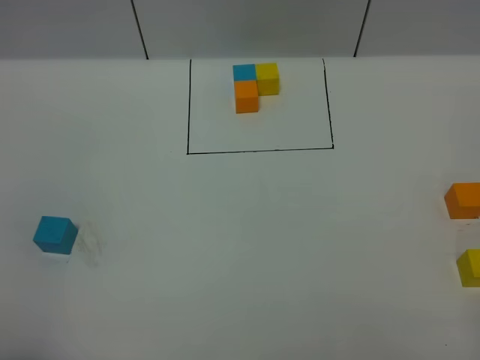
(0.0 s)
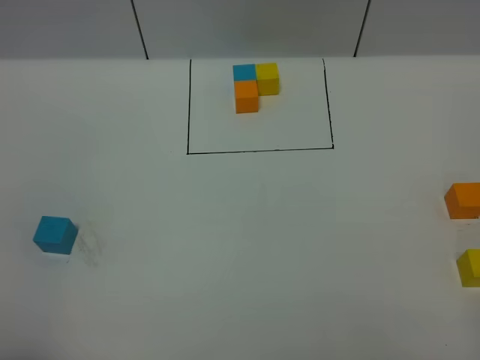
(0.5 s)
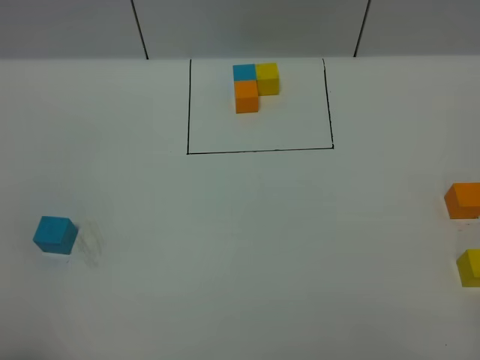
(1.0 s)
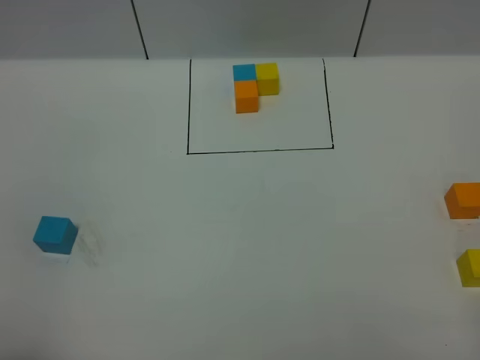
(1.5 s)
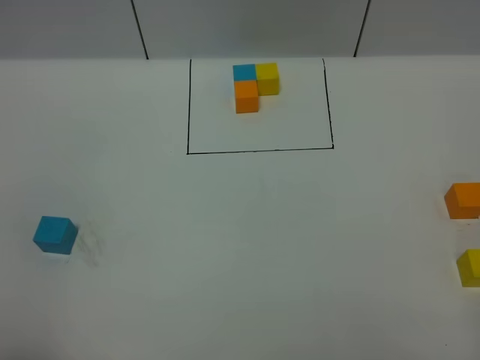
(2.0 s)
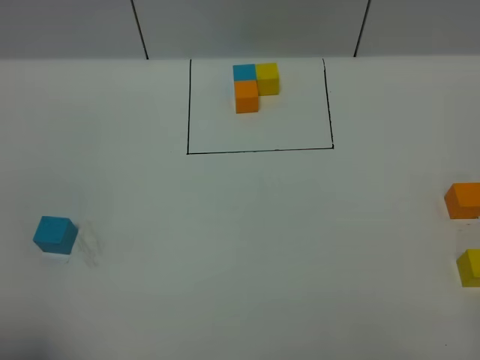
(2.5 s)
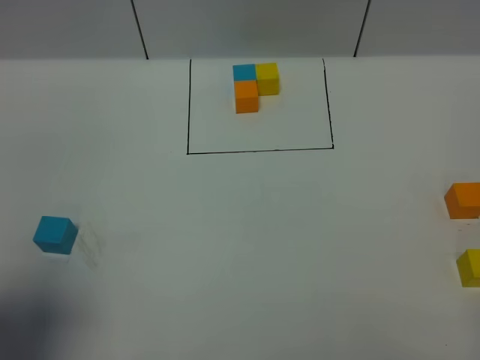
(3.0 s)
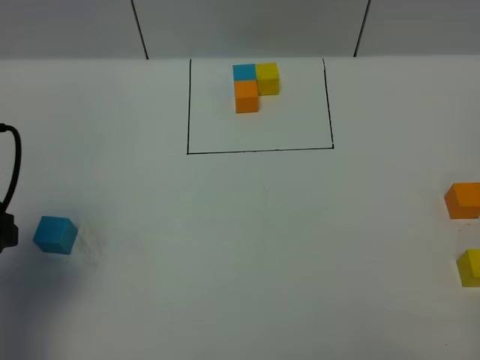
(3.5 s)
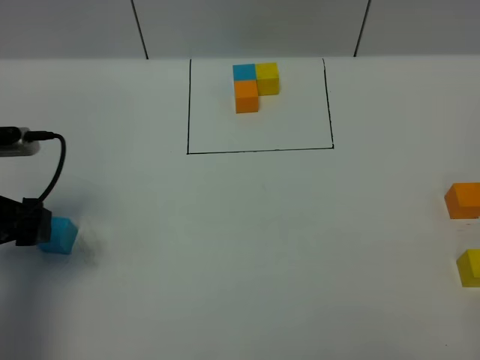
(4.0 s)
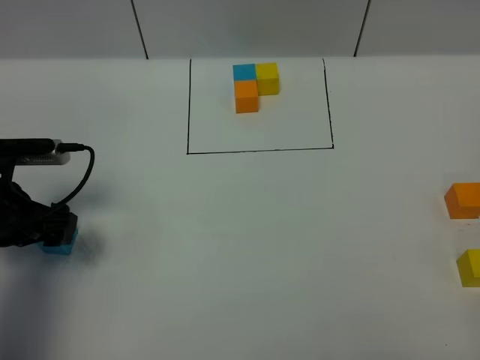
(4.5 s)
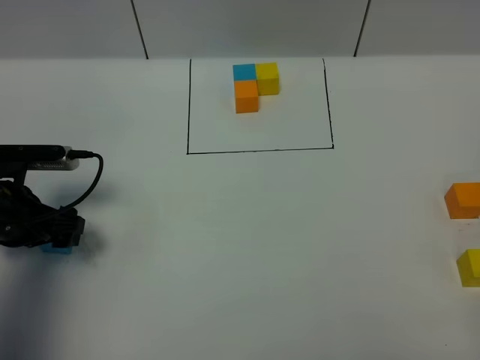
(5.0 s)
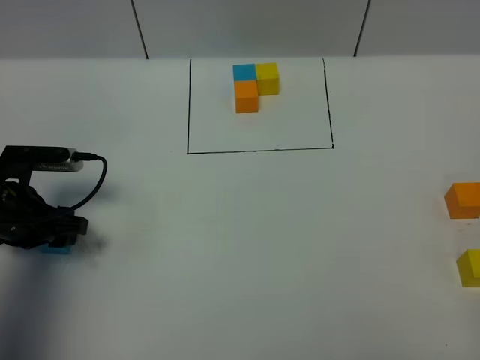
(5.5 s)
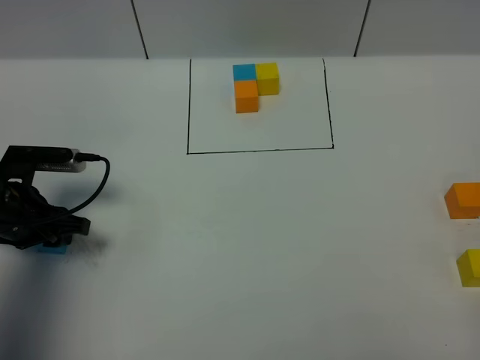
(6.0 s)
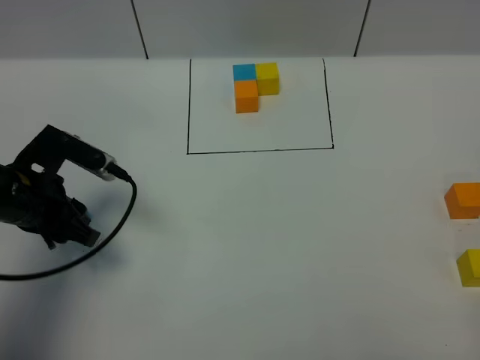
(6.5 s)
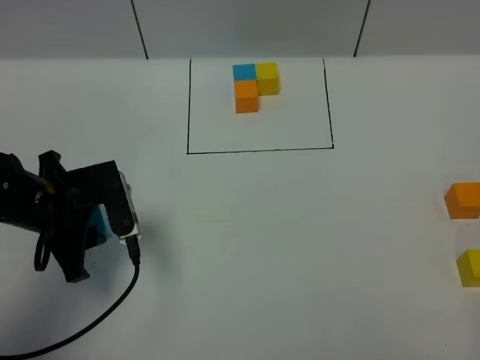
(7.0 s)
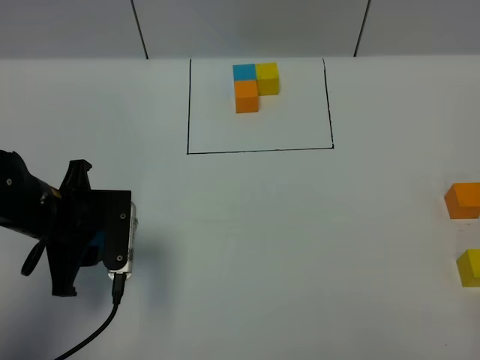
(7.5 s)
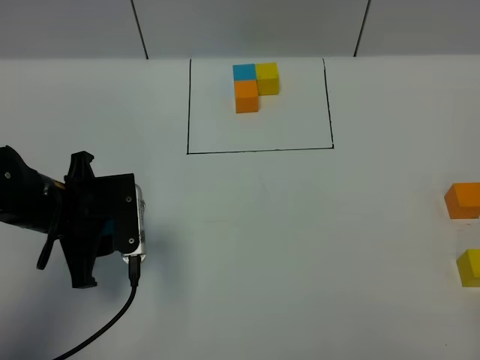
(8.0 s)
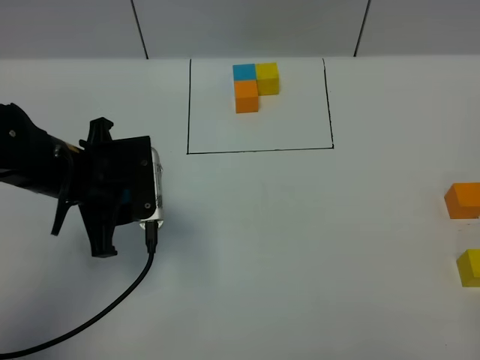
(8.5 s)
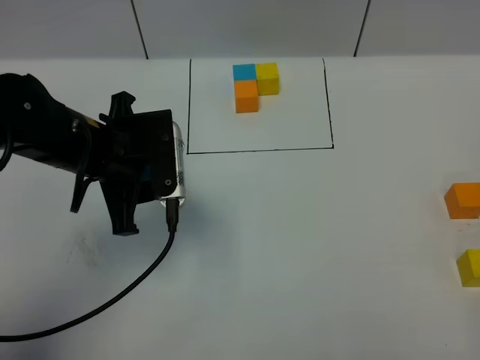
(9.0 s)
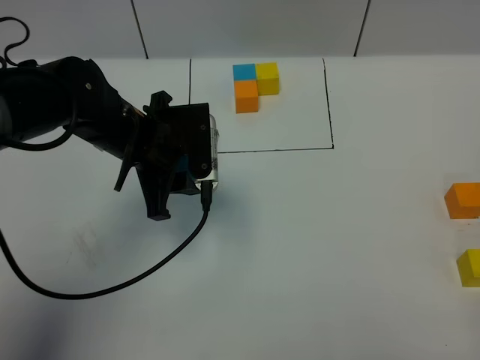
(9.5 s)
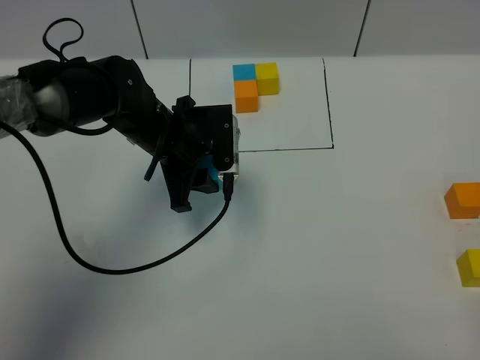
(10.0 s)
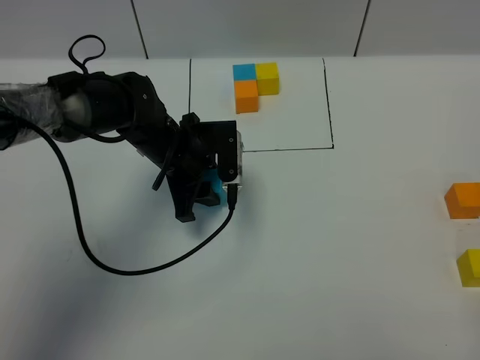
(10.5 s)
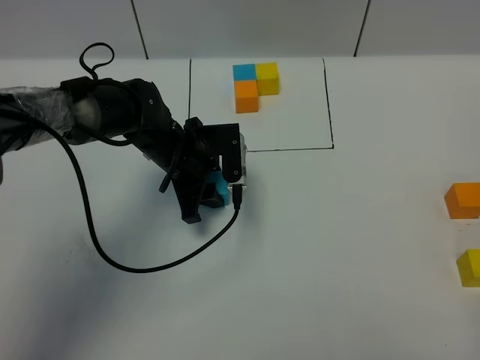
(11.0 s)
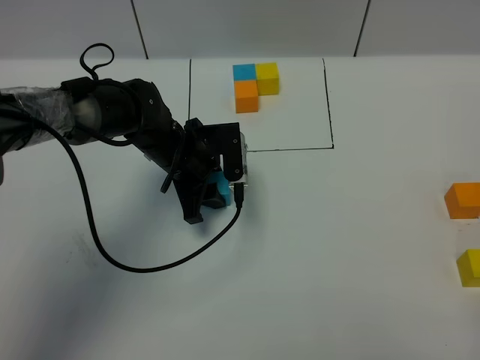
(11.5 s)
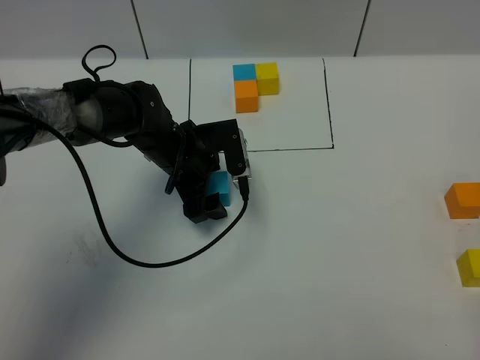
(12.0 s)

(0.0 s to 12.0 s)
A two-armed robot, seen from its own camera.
Task of the whole recording: According to the building block template in front, assemble the scattered blocks together.
2.0 s - 4.0 s: The left gripper shifts some 25 cm forward, and opens its fingers.
4.0 s - 6.0 s: The left gripper heads downward, covering about 10 cm, and closes its fingers.
6.0 s - 8.0 s: The left gripper goes roughly 10 cm to the right.
8.0 s - 10.0 s: The left gripper travels forward and to the right by roughly 15 cm.
10.0 s - 12.0 s: The left gripper goes about 5 cm downward, and opens its fingers.

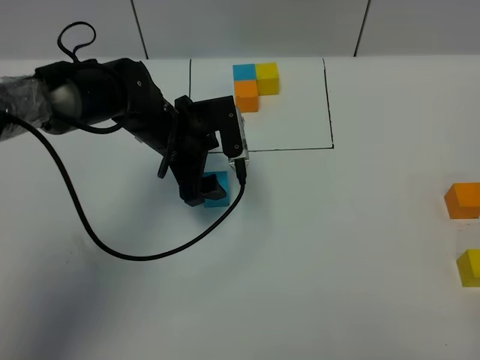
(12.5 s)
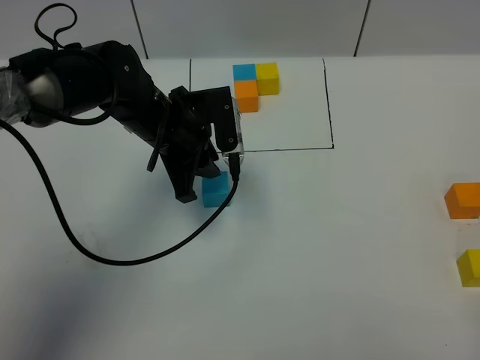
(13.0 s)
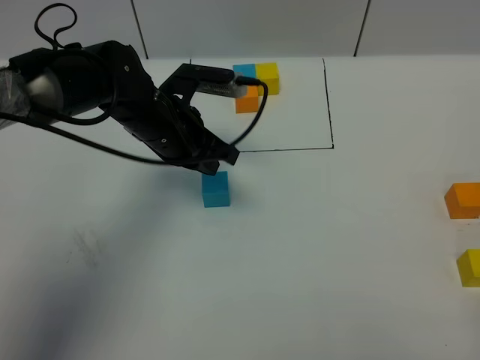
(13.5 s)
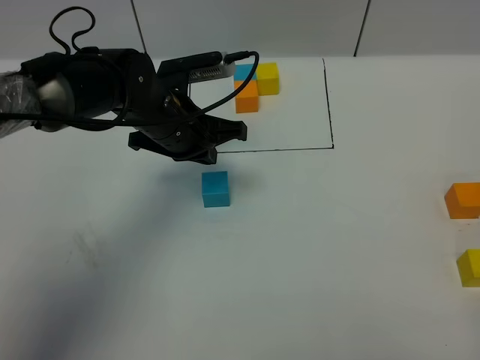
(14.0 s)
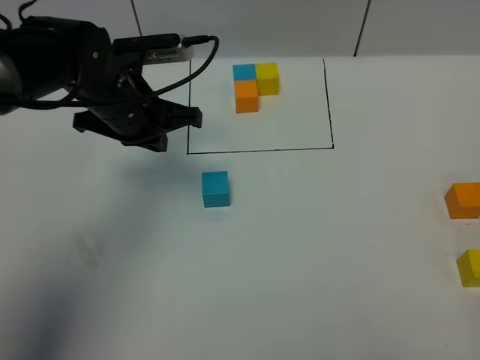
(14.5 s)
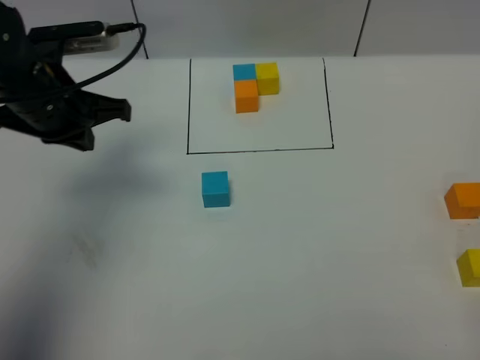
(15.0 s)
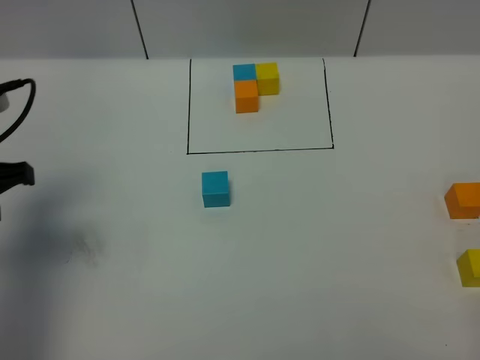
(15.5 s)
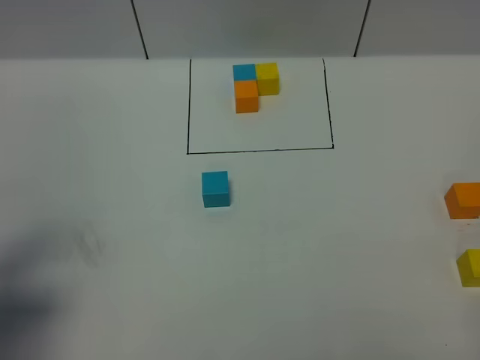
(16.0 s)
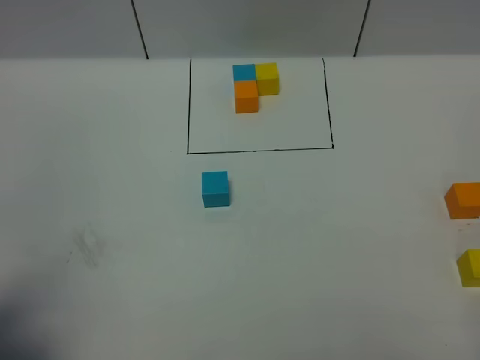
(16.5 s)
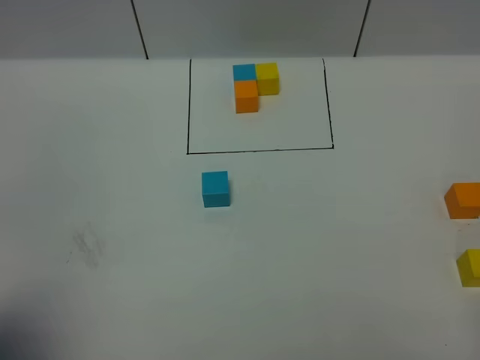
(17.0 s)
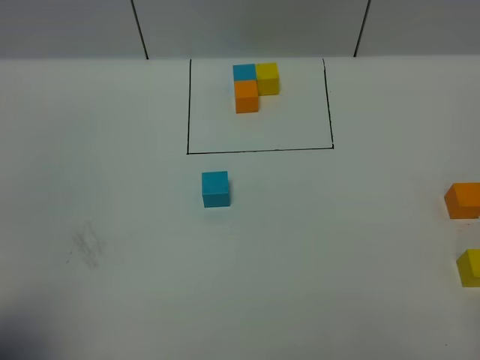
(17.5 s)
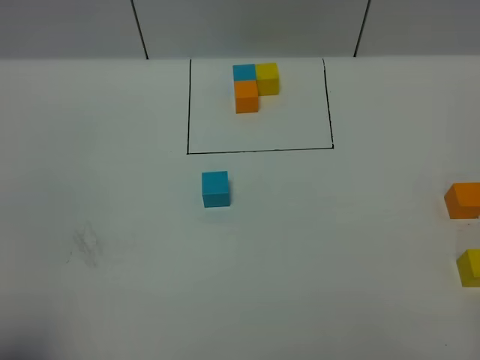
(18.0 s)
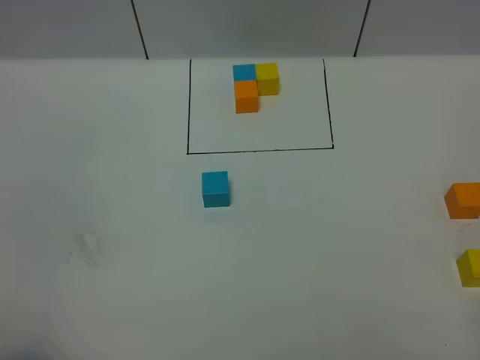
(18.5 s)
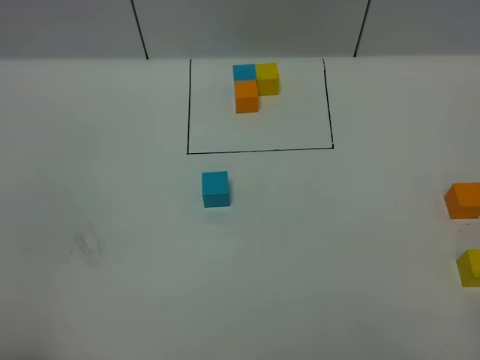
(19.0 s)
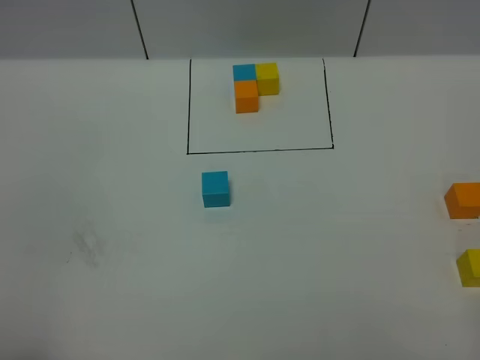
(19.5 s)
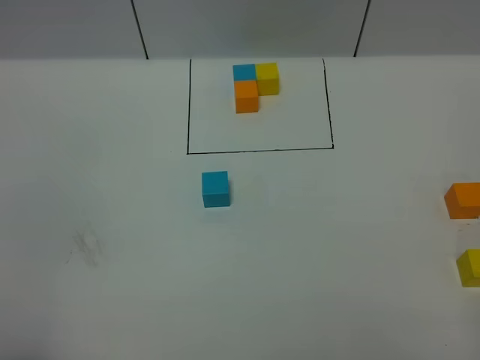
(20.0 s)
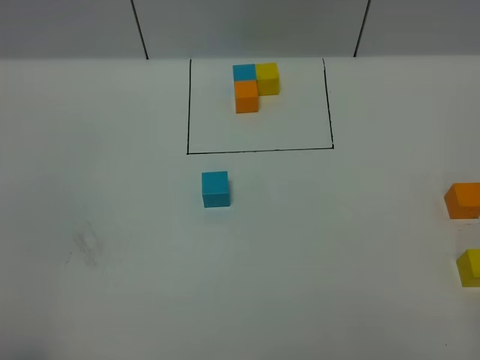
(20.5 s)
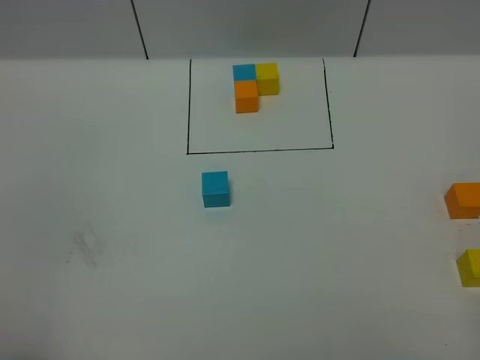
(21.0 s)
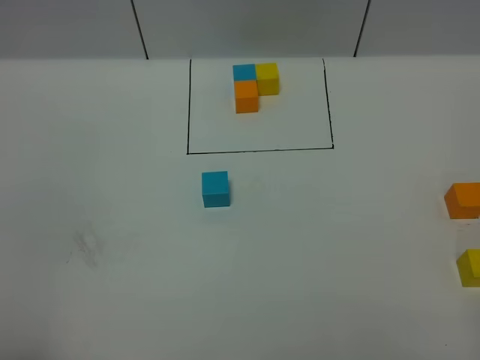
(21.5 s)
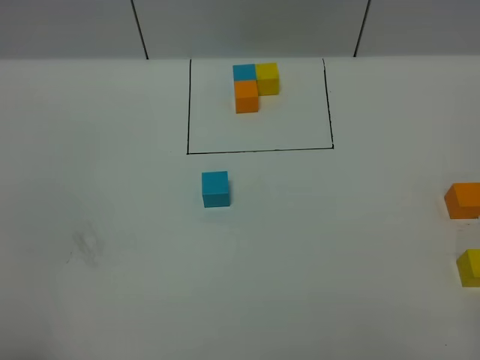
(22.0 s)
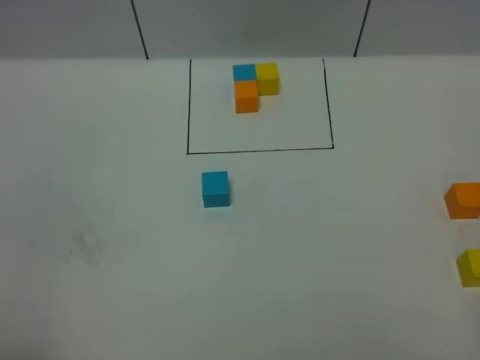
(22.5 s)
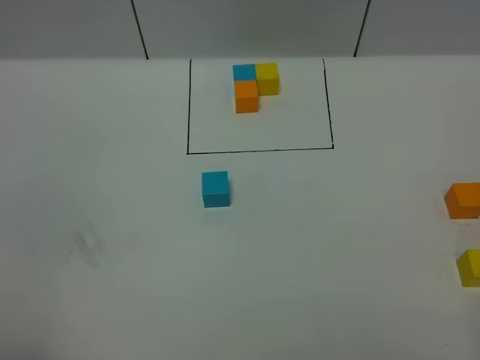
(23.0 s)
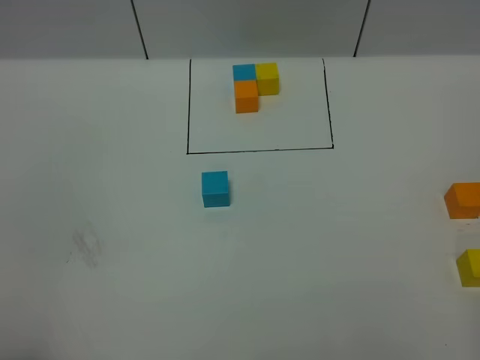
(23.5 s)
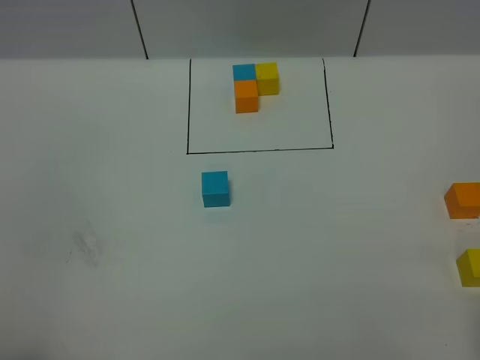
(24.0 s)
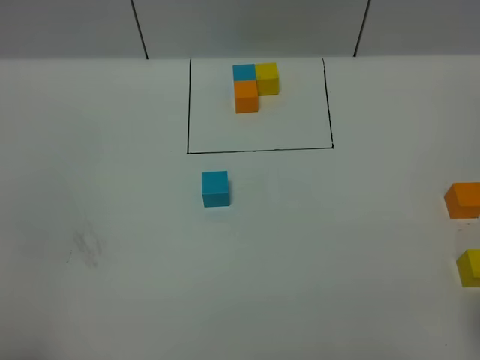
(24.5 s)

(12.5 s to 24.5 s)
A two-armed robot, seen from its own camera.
Task of the whole recording: According to the building block template in front, assemble the scattered blocks together.
12.5 s - 14.5 s: The left gripper travels upward by roughly 5 cm, and closes up.
14.5 s - 16.5 s: The left gripper goes approximately 35 cm backward and to the left.
16.5 s - 18.5 s: The left gripper heads backward, covering some 10 cm.
18.5 s - 20.5 s: The two grippers keep their place.

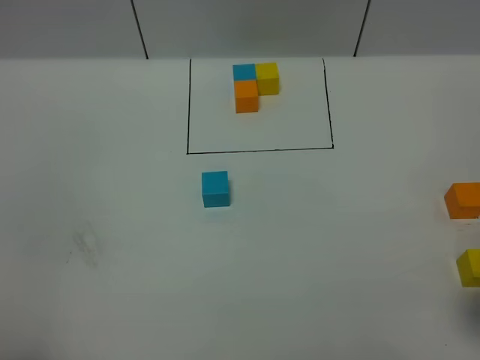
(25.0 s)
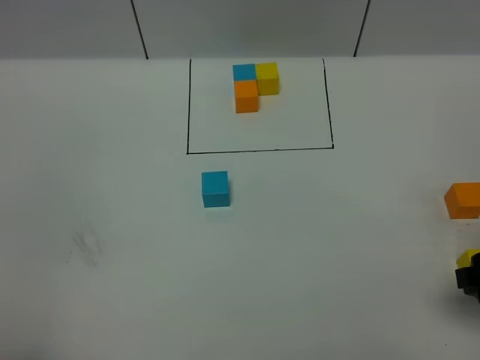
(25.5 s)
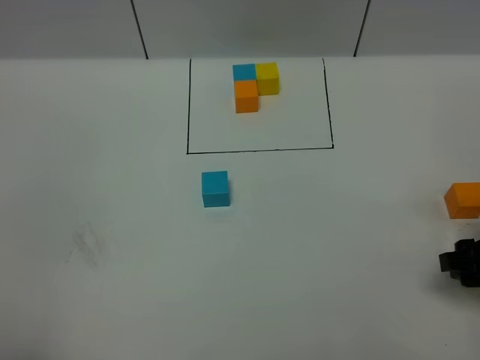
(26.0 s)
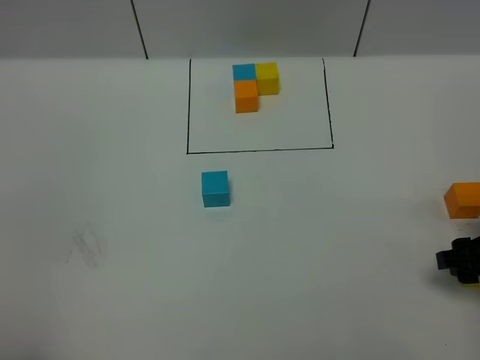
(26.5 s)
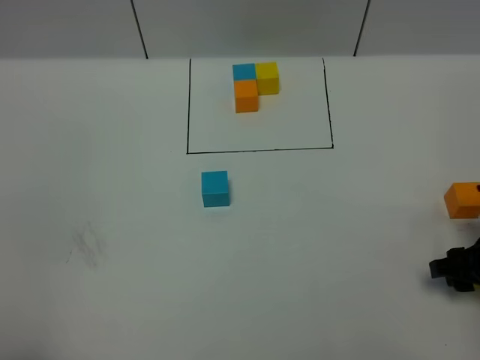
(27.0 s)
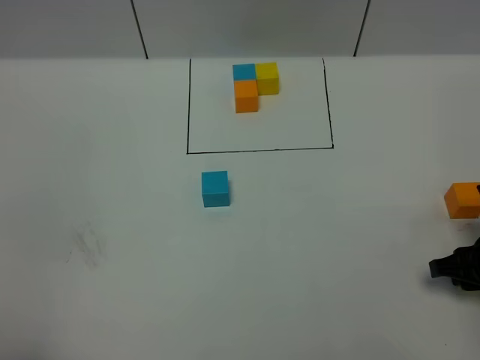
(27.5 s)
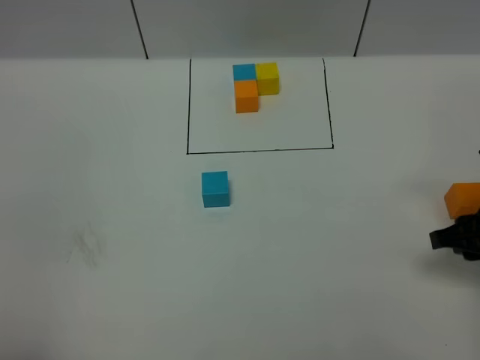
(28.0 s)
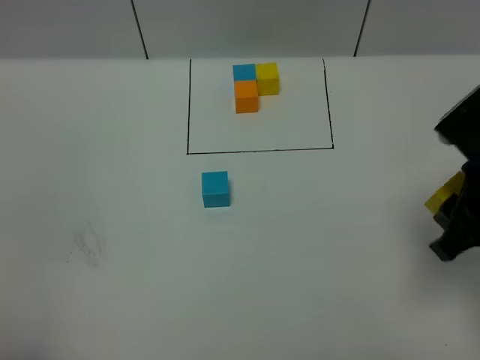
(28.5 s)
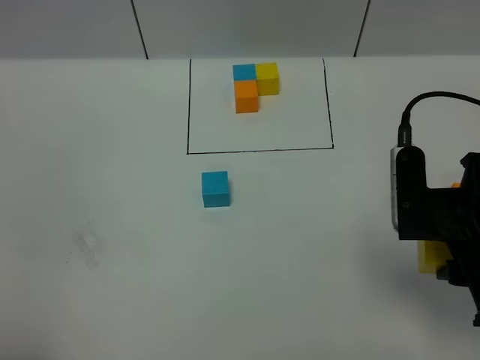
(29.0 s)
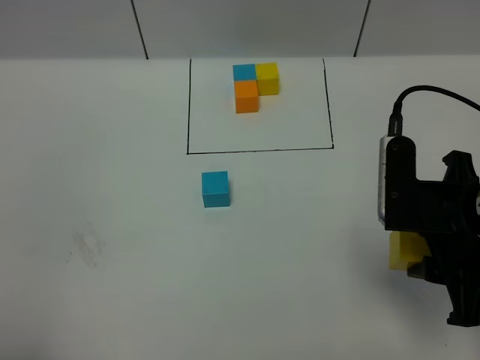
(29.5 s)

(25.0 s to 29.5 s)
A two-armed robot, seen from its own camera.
Task of the whole recording: According to the building block template in front, assemble the scattered blocks together.
25.0 s - 27.0 s: The right gripper shifts roughly 15 cm downward and forward.
27.0 s - 29.5 s: The right gripper shifts some 20 cm upward and to the left.
